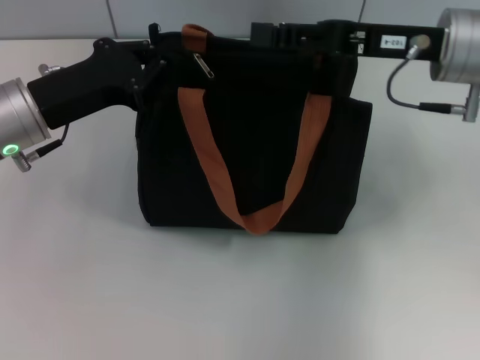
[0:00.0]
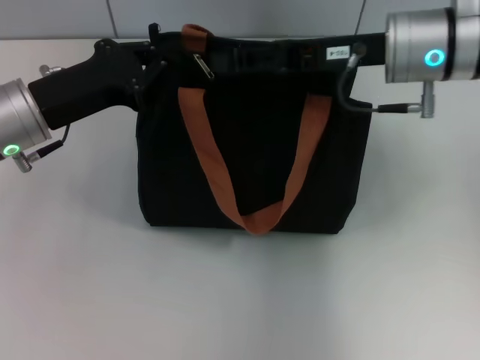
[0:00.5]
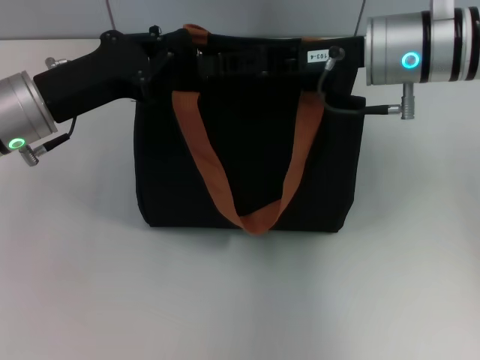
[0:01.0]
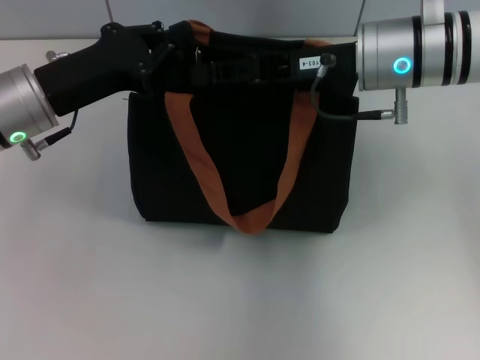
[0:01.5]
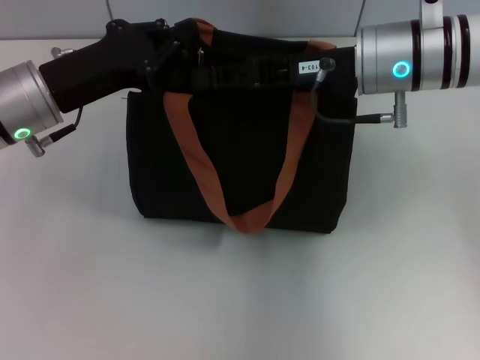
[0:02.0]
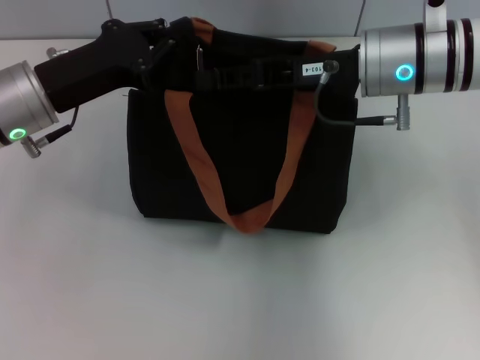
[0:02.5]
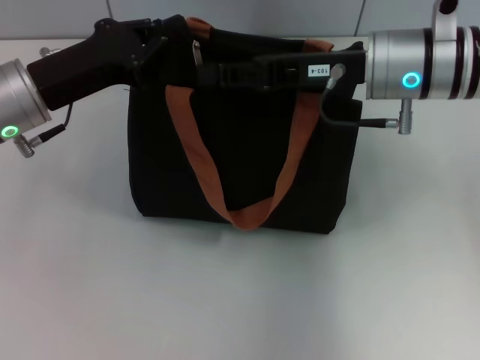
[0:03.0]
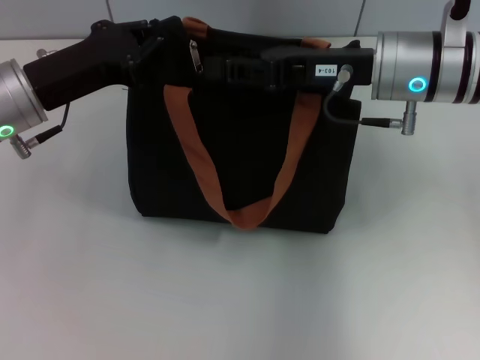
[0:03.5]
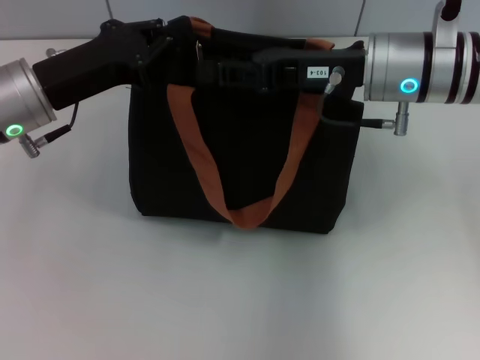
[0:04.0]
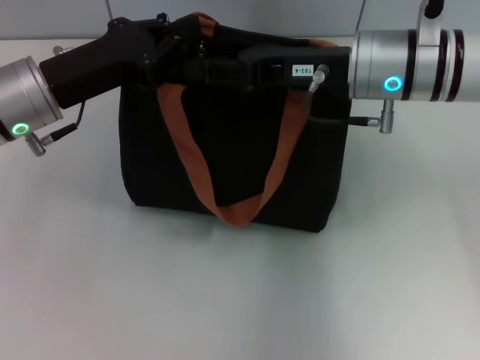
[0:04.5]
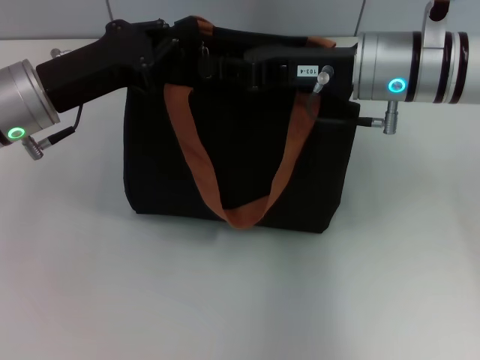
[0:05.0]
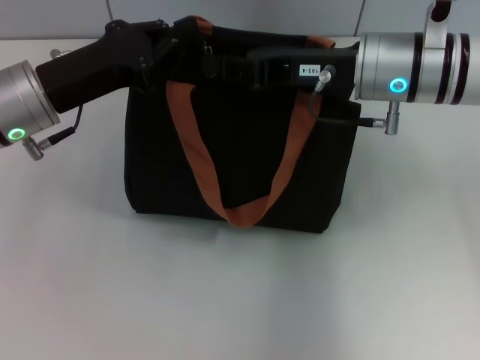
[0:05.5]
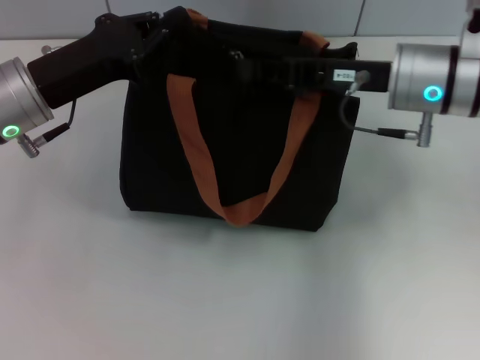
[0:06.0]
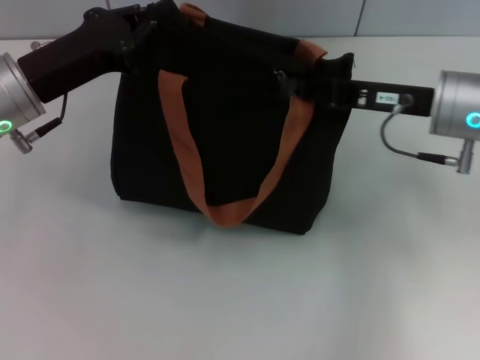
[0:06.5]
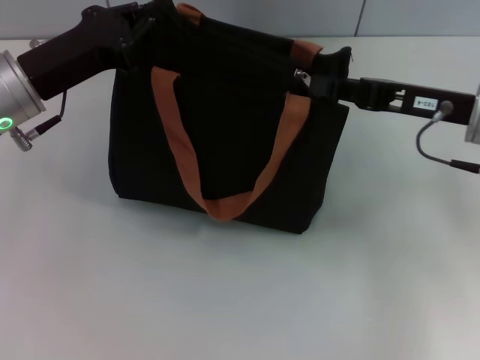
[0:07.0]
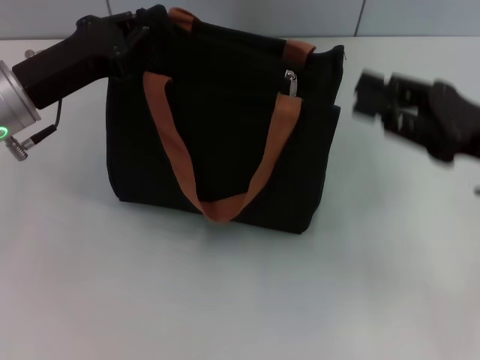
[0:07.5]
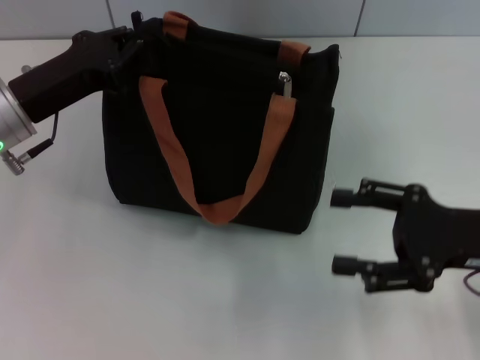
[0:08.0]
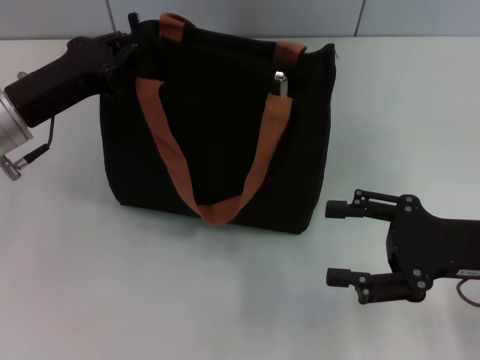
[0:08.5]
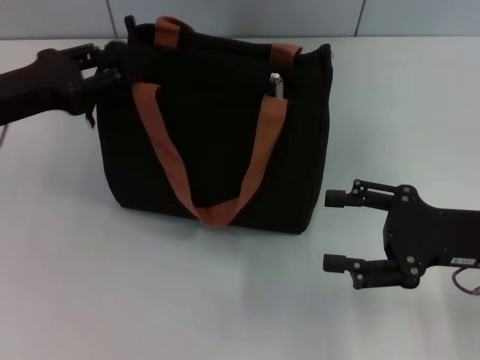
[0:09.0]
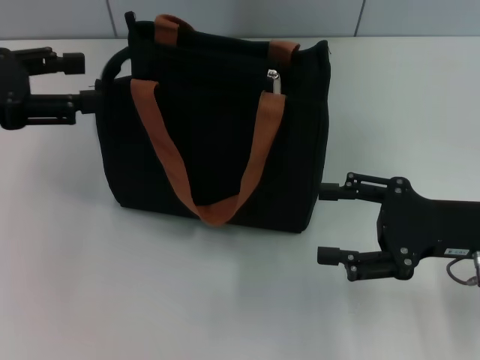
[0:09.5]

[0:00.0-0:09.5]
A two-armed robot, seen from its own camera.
Step, 0:00.0 to 0:06.5: Pull up the zipper with your right hand.
Step, 0:07.5 to 0:09.5: Grab the zipper with your left hand.
0:00.0 to 0:02.0: The right gripper travels to the left by some 5 cm.
0:02.0 to 0:04.0: There are only small adjustments of the grippers.
0:04.0 to 0:05.5: The right gripper closes its fingers.
0:05.5 to 0:07.5: The right gripper heads to the right and backward, covering some 15 cm.
0:07.5 to 0:09.5: The right gripper changes place by approximately 5 cm, and opens. The left gripper heads to the left and upward, covering about 10 cm, and opens.

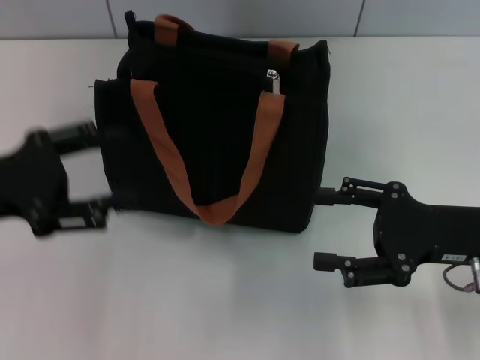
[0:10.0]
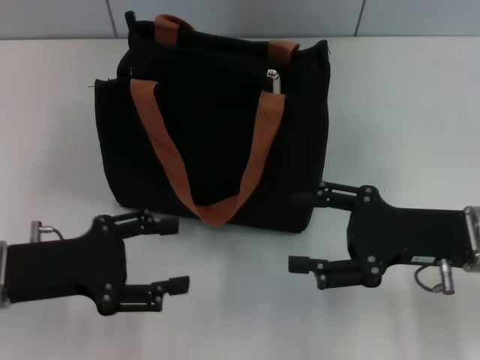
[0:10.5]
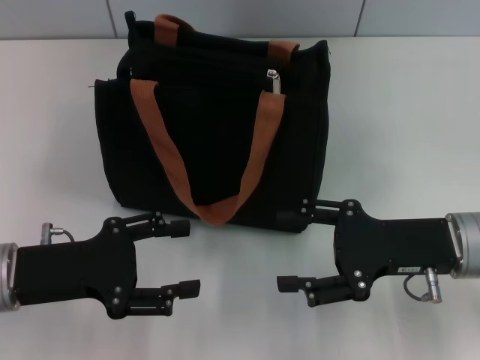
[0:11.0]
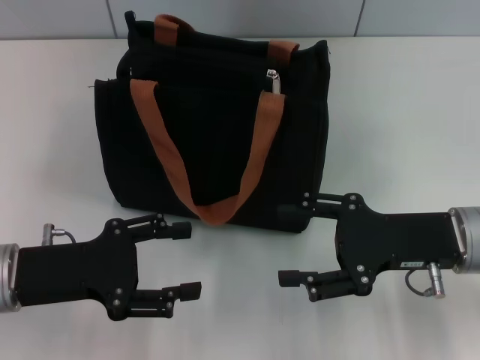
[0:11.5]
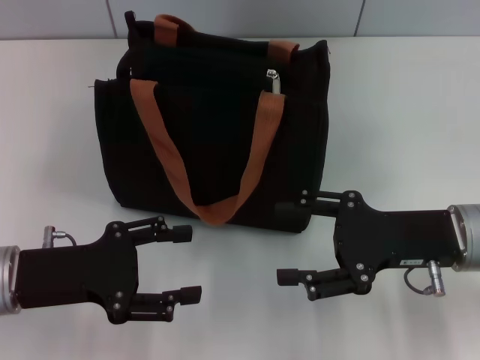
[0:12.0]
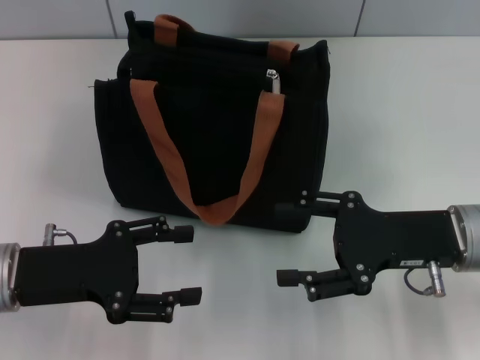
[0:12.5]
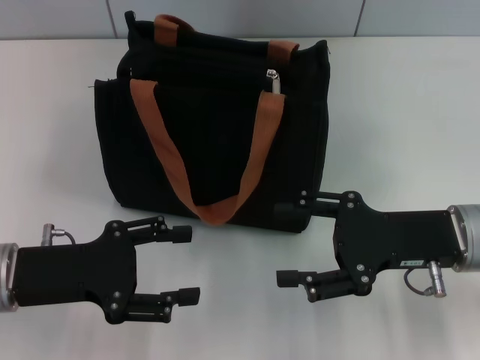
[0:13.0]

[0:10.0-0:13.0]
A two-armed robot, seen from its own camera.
0:10.0 to 0:11.5: The left gripper moves downward, some 5 cm.
0:11.5 to 0:13.0: The two grippers keep their place.

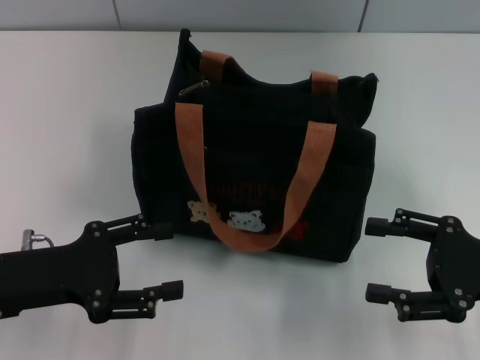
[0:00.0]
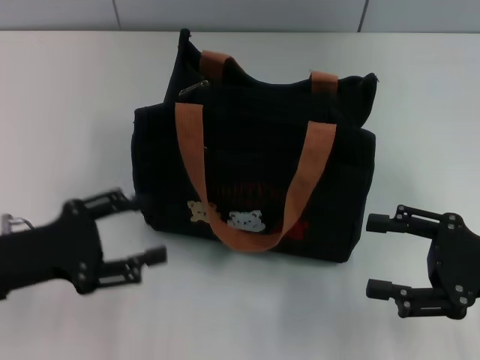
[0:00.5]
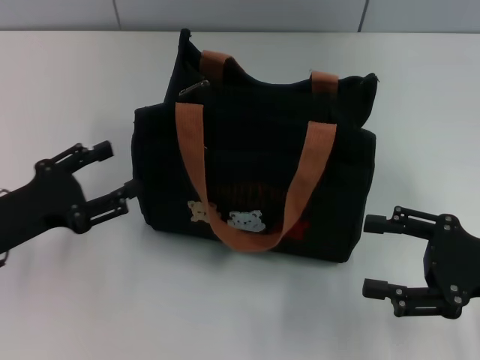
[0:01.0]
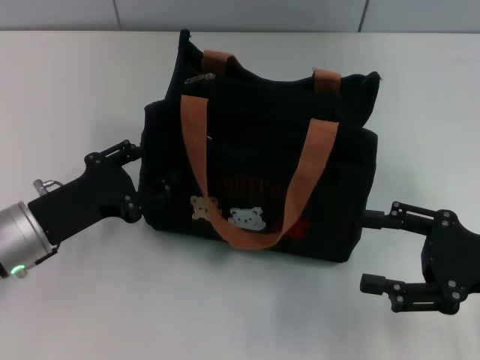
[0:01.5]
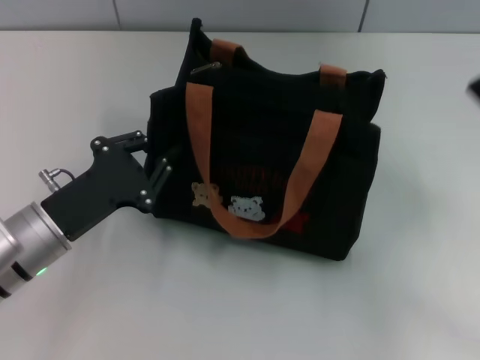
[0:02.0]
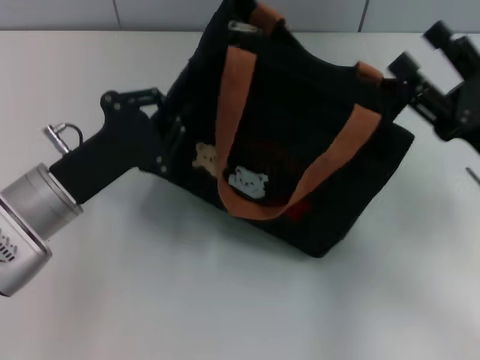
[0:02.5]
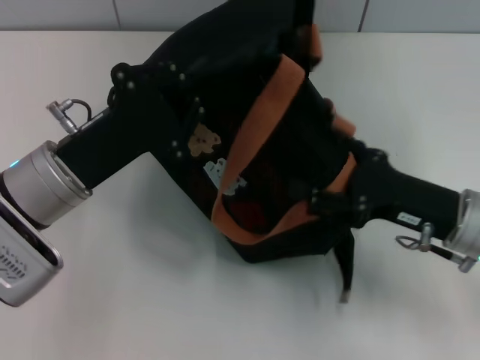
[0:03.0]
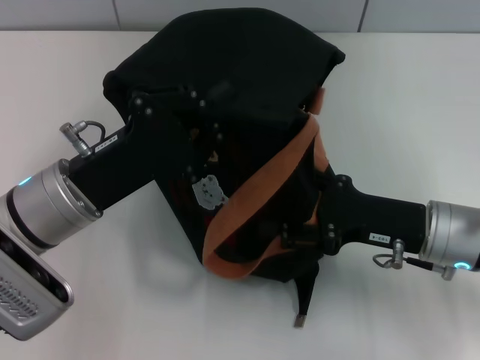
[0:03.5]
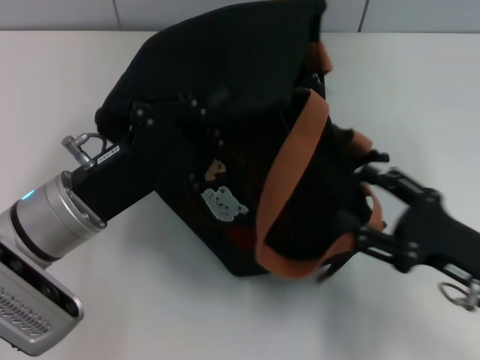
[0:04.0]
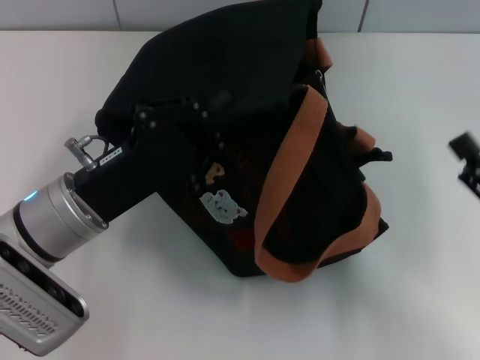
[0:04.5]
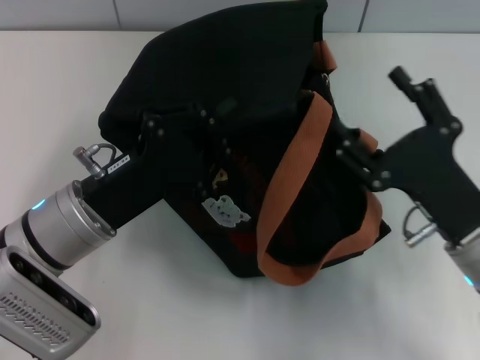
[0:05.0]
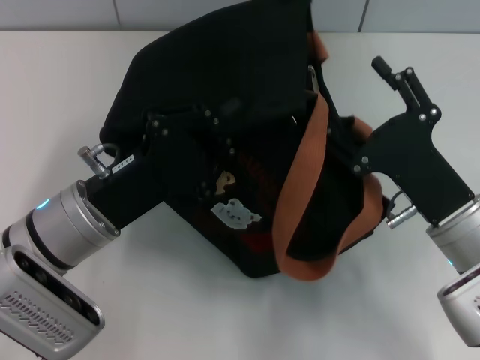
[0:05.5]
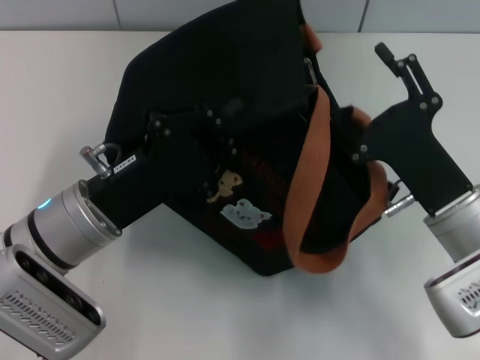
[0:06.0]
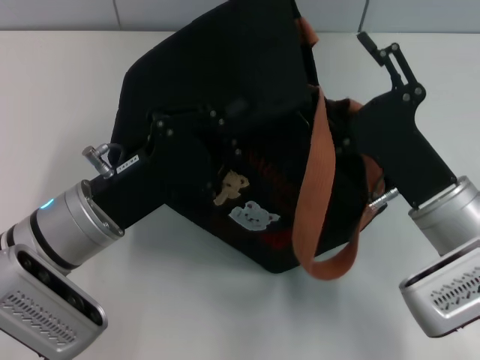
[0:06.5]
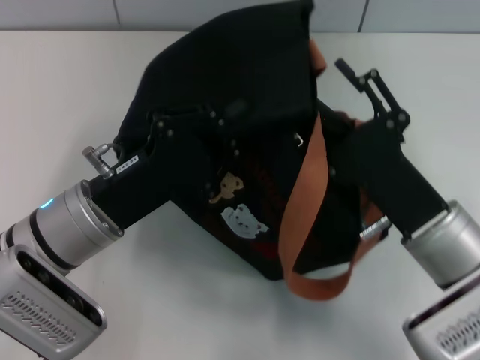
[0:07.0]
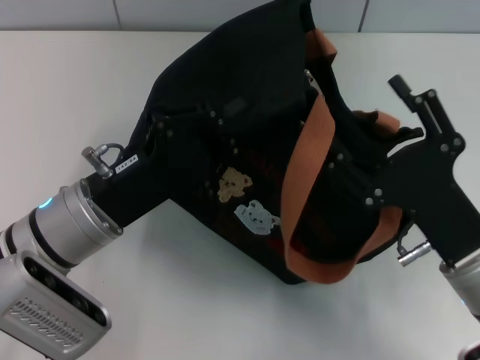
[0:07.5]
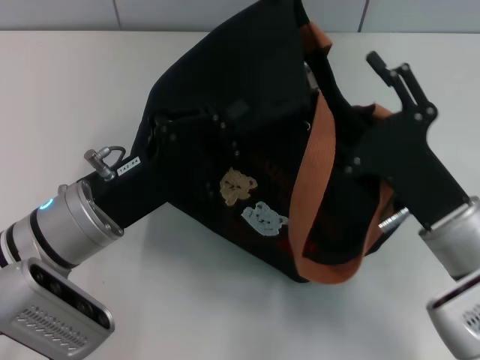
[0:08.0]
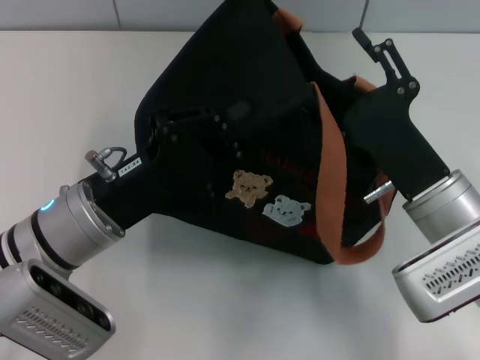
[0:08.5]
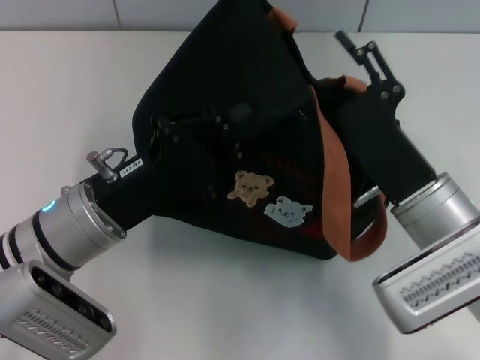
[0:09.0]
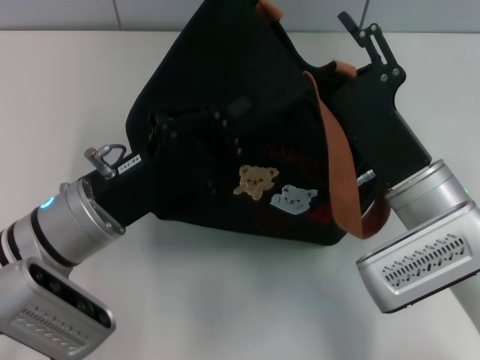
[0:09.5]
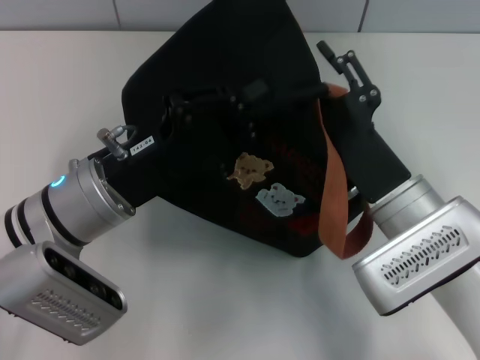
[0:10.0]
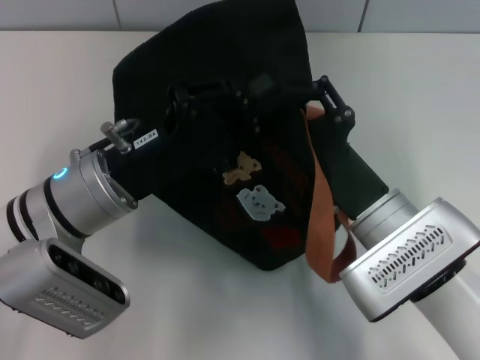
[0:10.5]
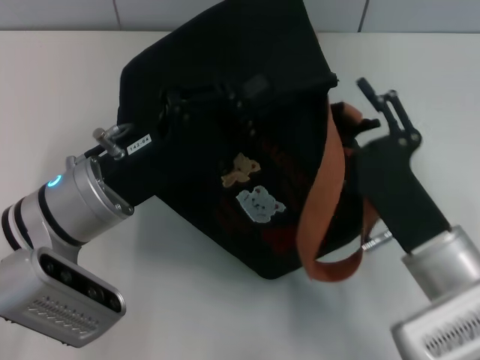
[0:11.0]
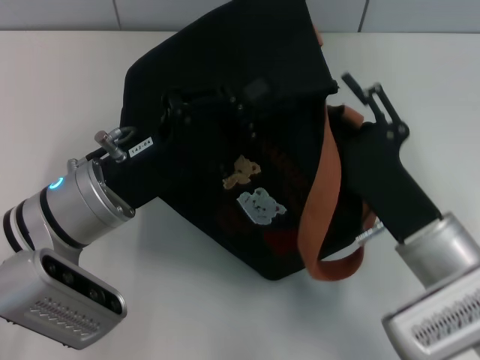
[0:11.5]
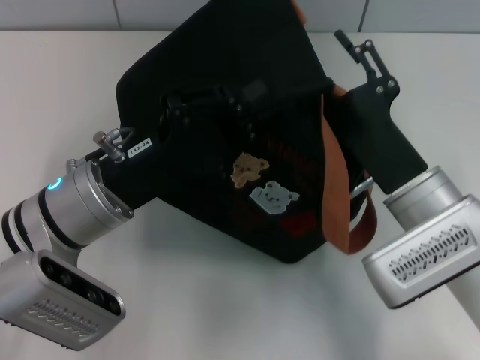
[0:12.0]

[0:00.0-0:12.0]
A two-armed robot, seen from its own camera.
0:00.0 to 0:02.0: The left gripper changes place by about 5 cm, and closes up.
0:02.0 to 0:04.0: The left gripper moves approximately 5 cm, and closes; the right gripper travels downward and to the left by approximately 10 cm.
0:04.0 to 0:06.0: The right gripper goes approximately 5 cm to the left.

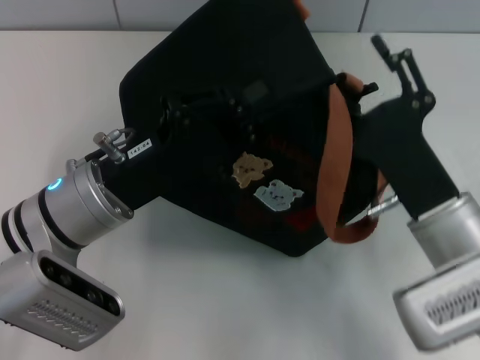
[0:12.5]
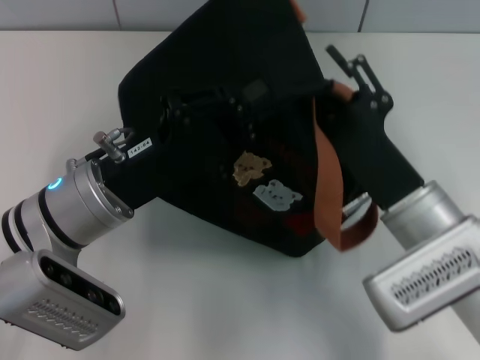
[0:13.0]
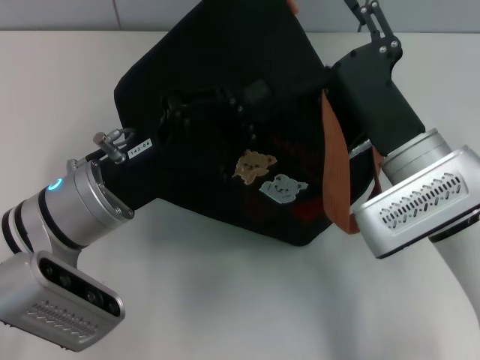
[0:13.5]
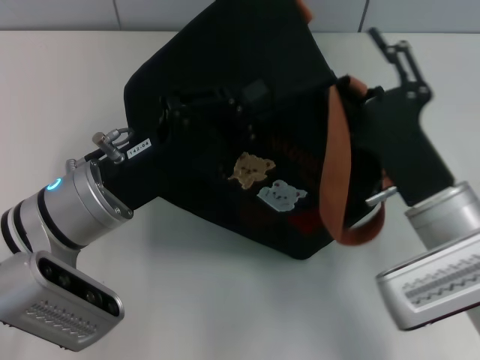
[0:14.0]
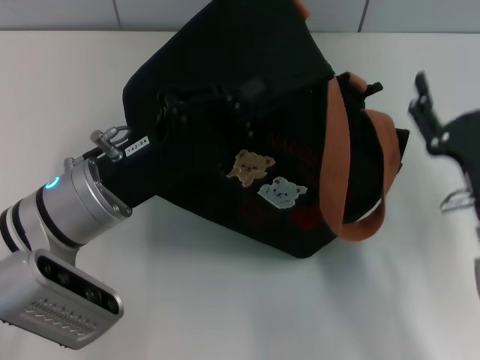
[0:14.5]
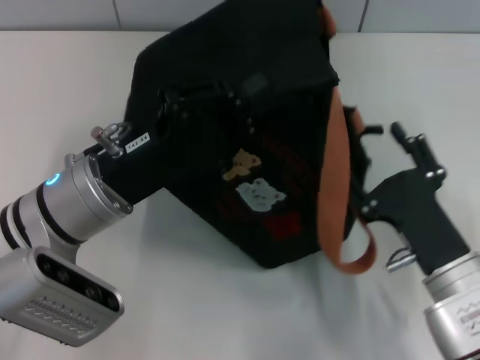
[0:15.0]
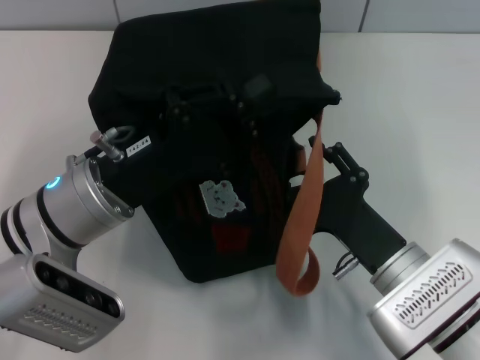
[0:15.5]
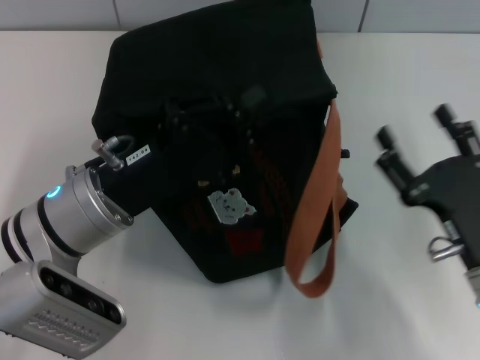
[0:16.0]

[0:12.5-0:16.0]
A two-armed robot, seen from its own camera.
0:12.5 to 0:14.5: The right gripper ends up about 5 cm from where it was.
